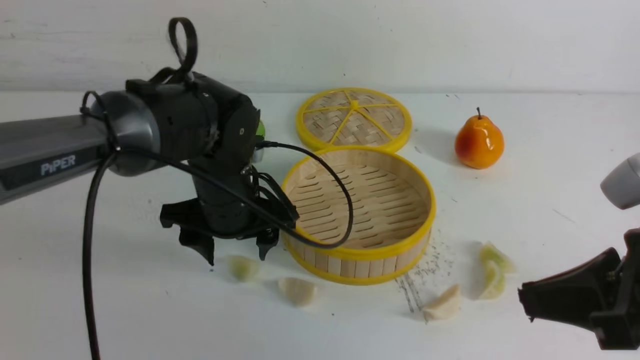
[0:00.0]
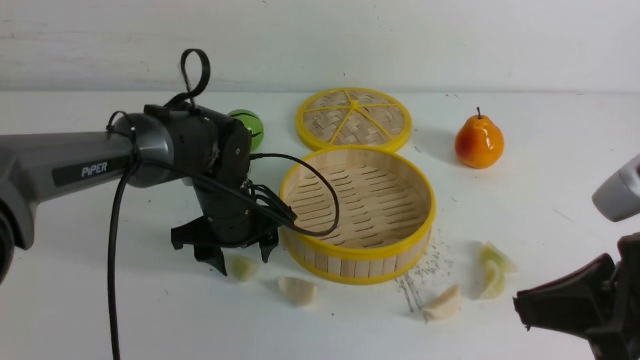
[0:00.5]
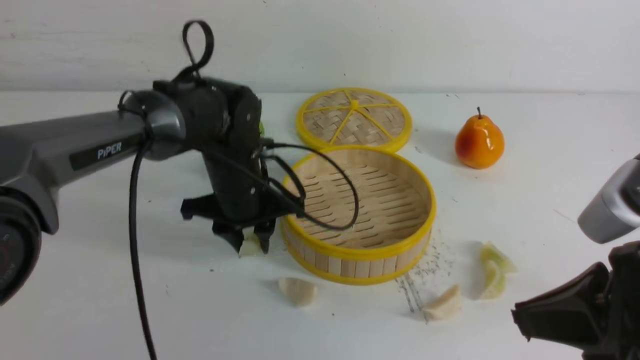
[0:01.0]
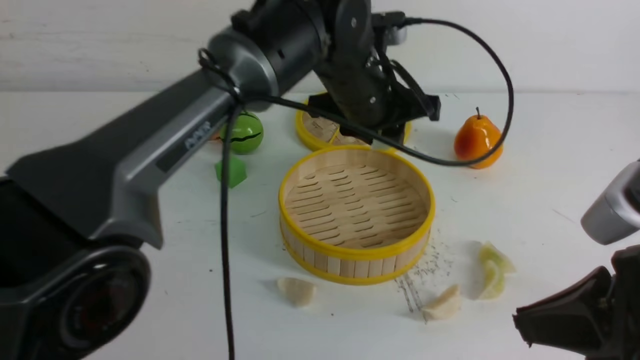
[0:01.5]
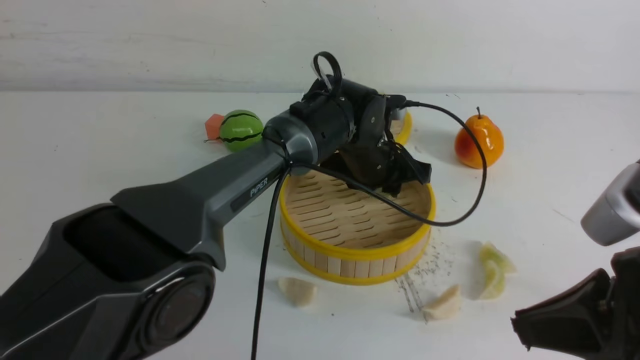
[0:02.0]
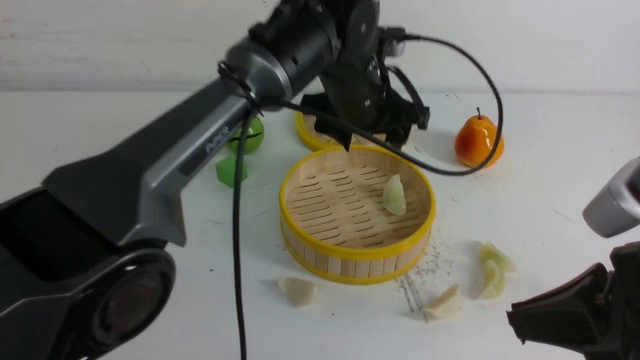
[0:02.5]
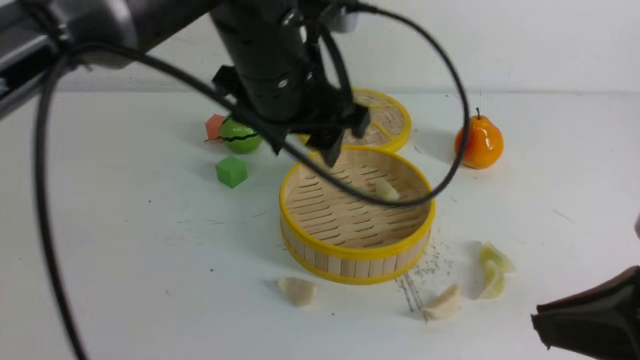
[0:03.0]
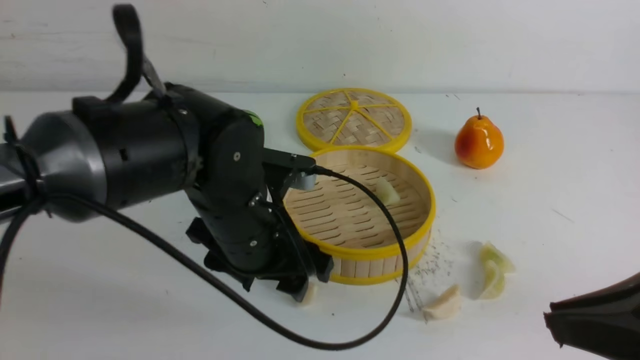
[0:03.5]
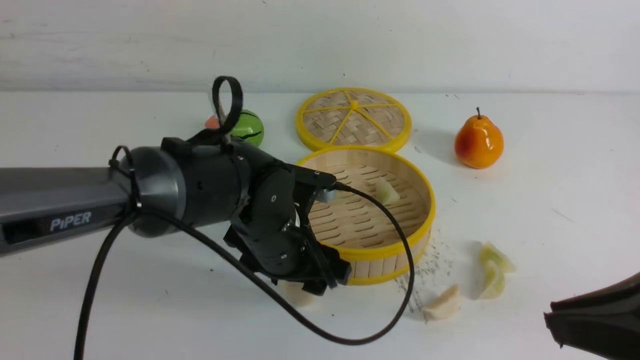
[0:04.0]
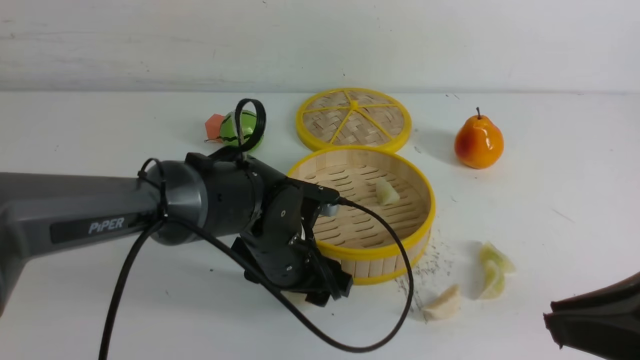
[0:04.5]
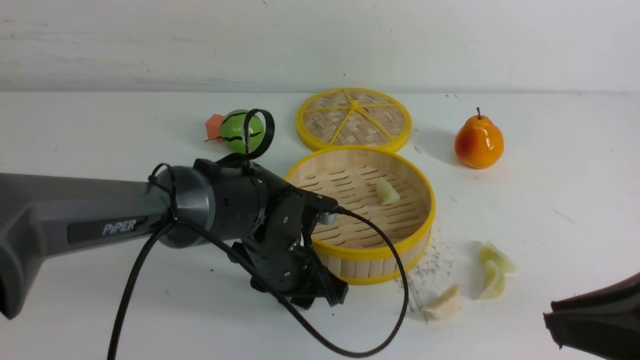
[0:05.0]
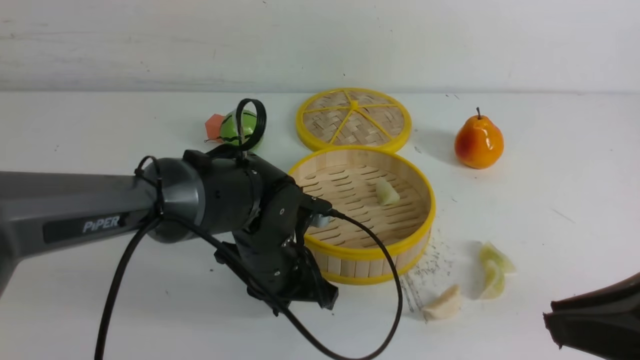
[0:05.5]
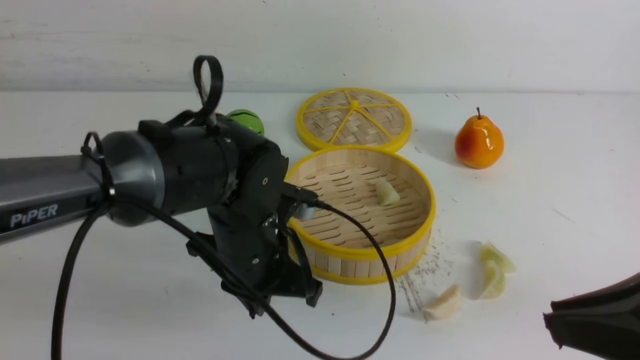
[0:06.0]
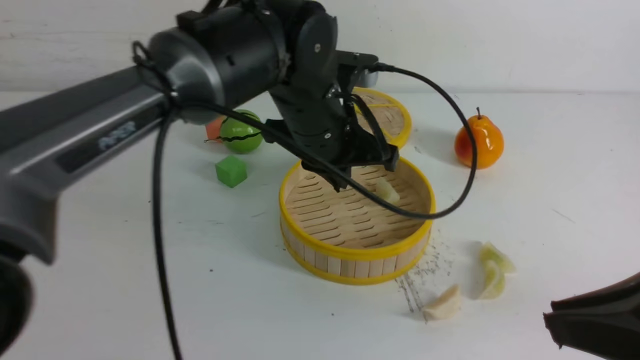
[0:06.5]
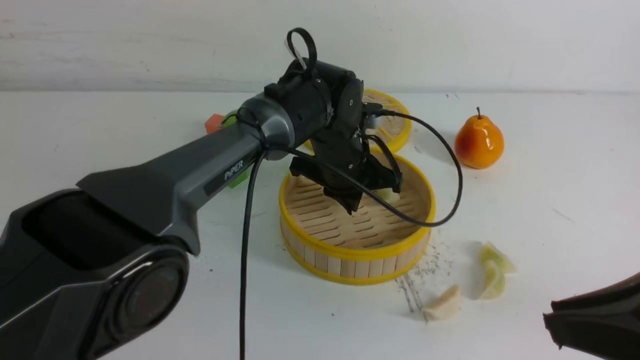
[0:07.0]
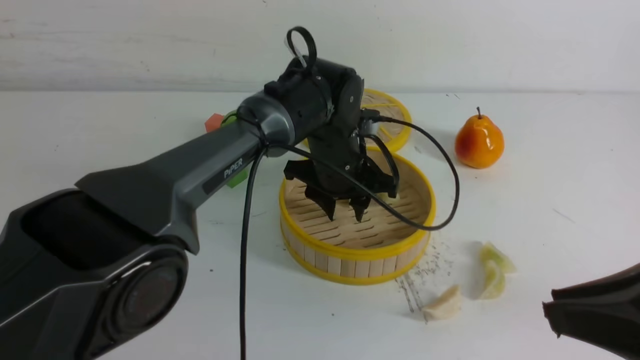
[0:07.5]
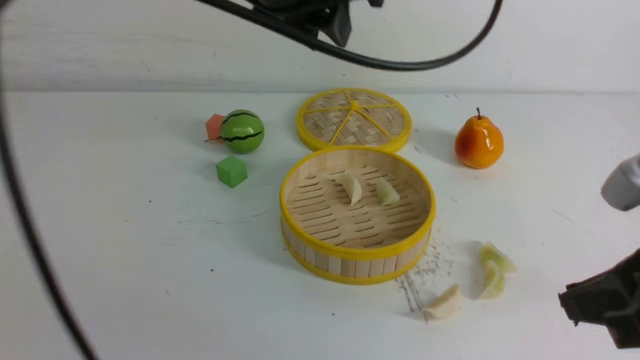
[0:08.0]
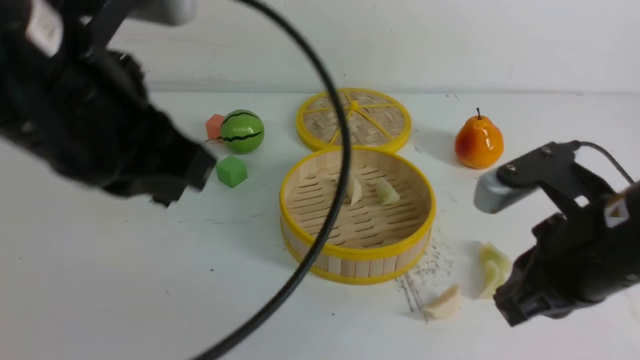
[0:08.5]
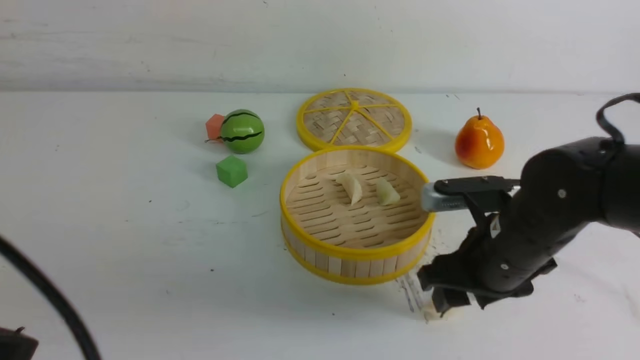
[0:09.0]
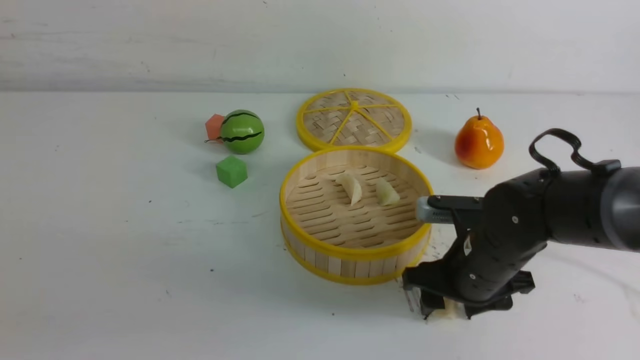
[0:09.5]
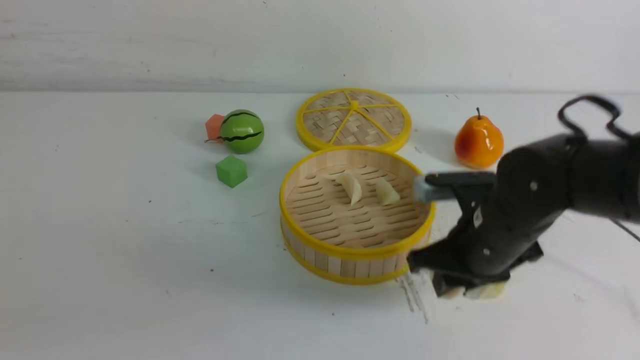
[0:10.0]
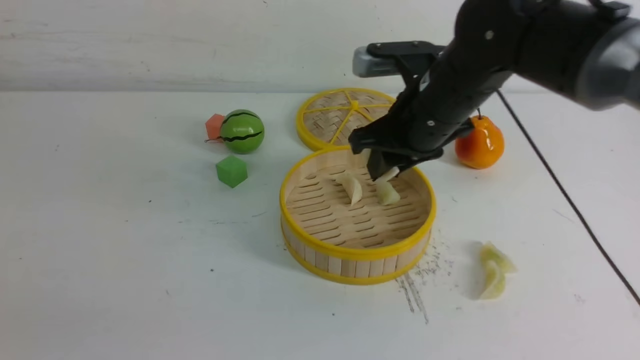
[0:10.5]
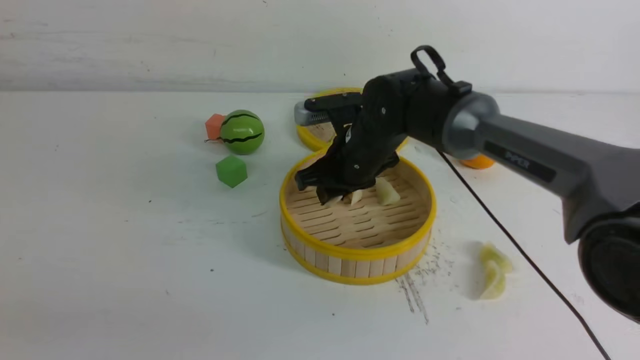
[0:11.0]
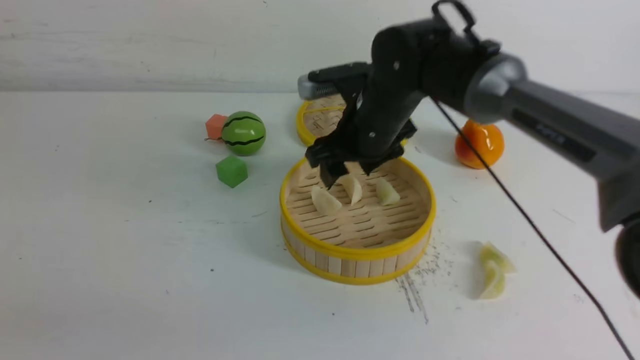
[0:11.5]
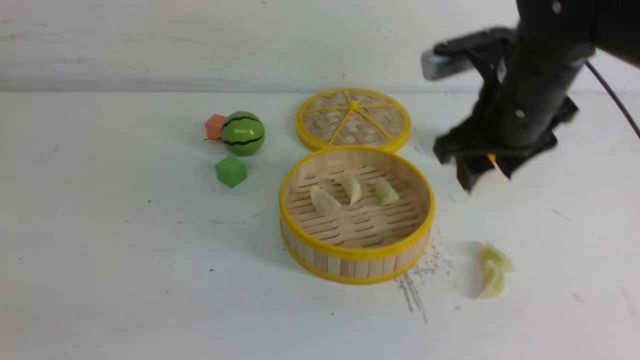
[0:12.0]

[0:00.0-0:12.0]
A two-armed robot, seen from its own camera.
Task of the whole recording: put the dumplings into the steamer on the white table.
Step, 0:01.5 to 0:02.0: use the left arm to put the dumpling into the steamer.
Step, 0:02.5 to 0:05.0: use the left arm to grab a dumpling.
Step, 0:05.5 to 0:07.0: use the left arm to put the dumpling into the steamer.
Step, 0:07.5 to 0:09.5: use the right arm to grab a dumpling.
Step, 0:10.0 to 0:11.0: use the right arm to put the dumpling into the steamer.
0:00.0 to 0:02.0: The left gripper goes about 20 cm to the right and forward, and closes its fingers.
0:02.0 to 0:04.0: The left gripper goes roughly 15 cm backward and to the left, travels upward and back again, approximately 15 cm each way, and opens its fingers.
0:04.0 to 0:06.0: The left gripper closes its fingers.
0:06.0 to 0:08.0: The left gripper swings up and down, approximately 25 cm each way, with 2 reversals, and opens up.
0:08.0 to 0:10.0: The right gripper shifts about 20 cm forward, downward and to the left, and opens and closes again. The left gripper heads backward and to the left, covering roughly 30 cm, and closes up.
0:10.0 to 0:12.0: The right gripper travels upward by some 10 cm, goes forward and returns, approximately 10 cm each way, and opens its fingers.

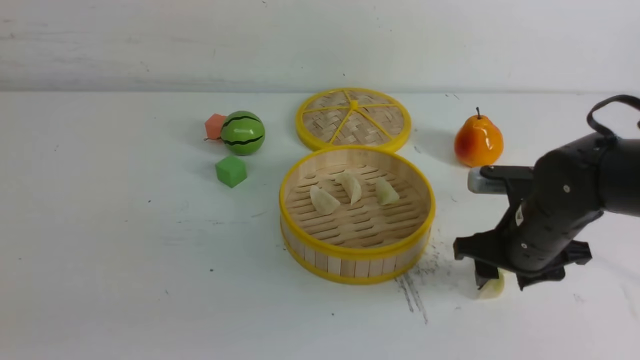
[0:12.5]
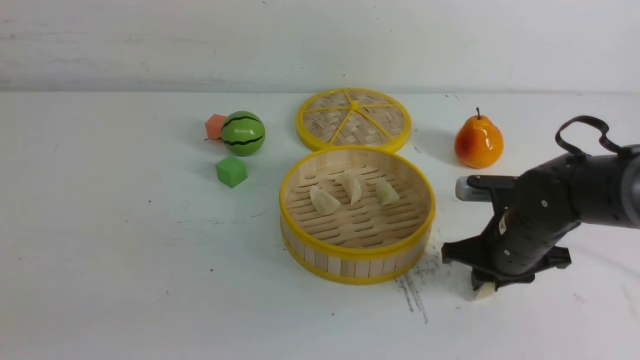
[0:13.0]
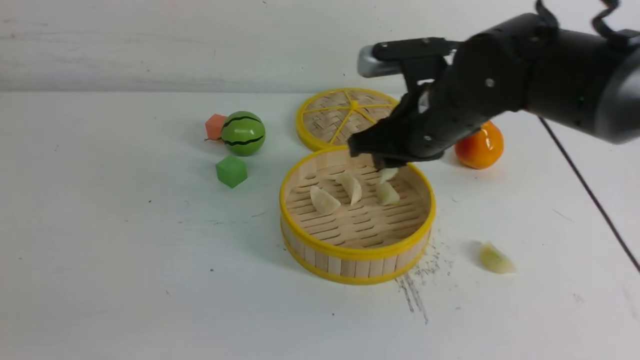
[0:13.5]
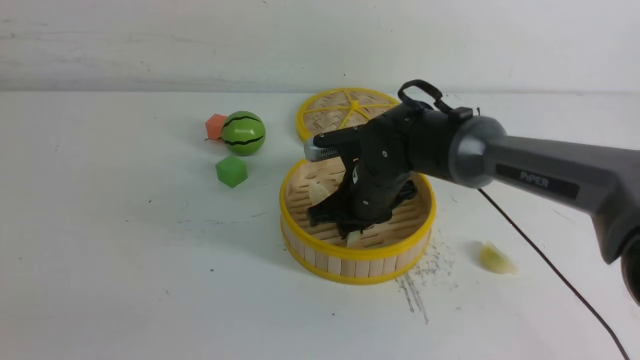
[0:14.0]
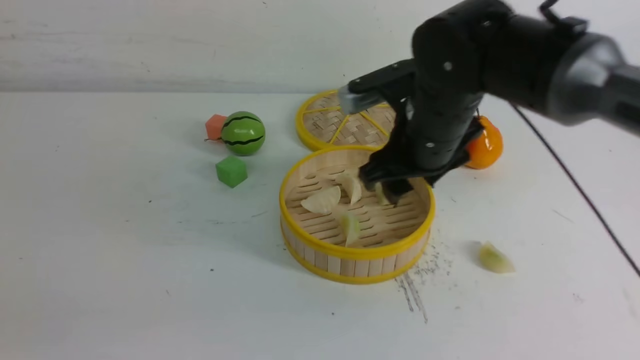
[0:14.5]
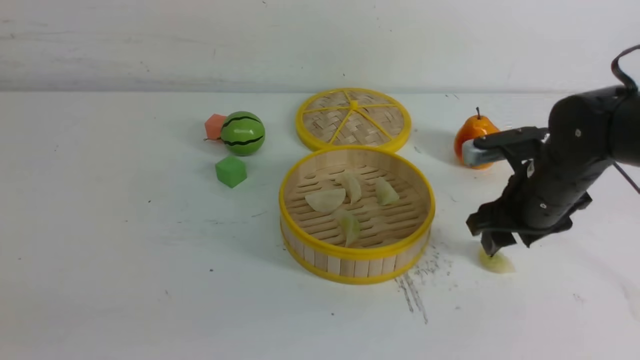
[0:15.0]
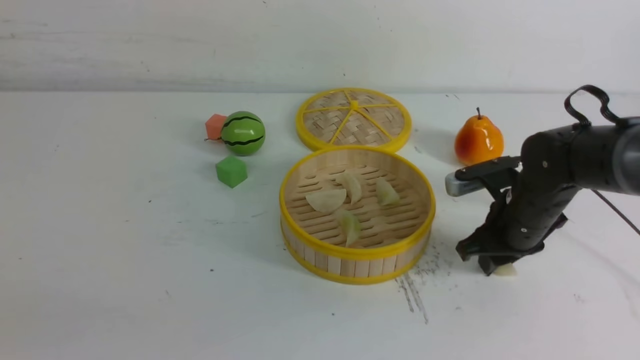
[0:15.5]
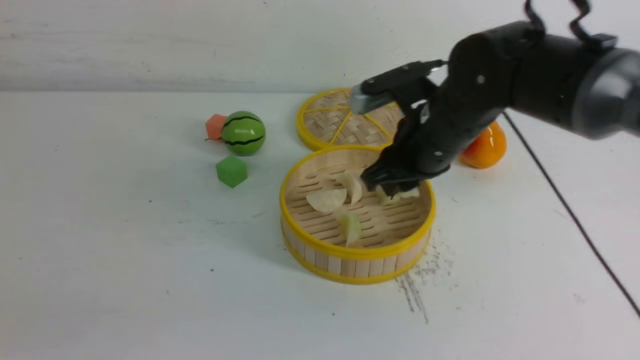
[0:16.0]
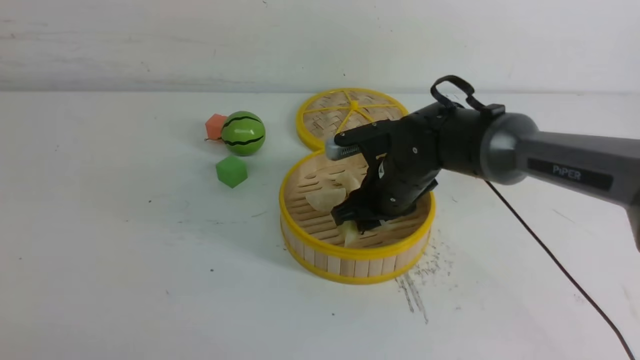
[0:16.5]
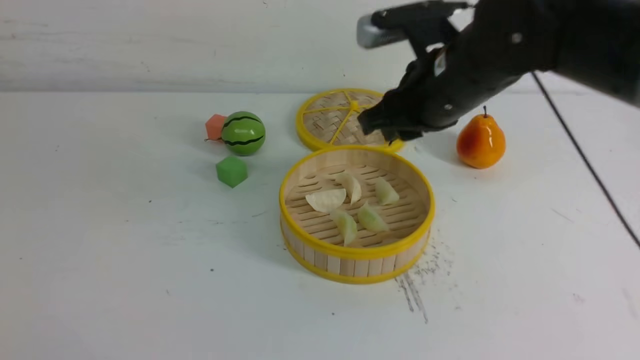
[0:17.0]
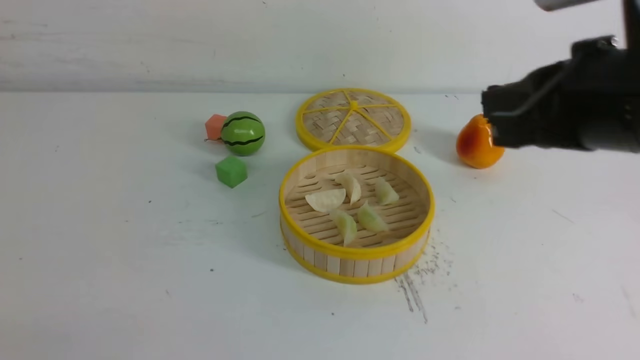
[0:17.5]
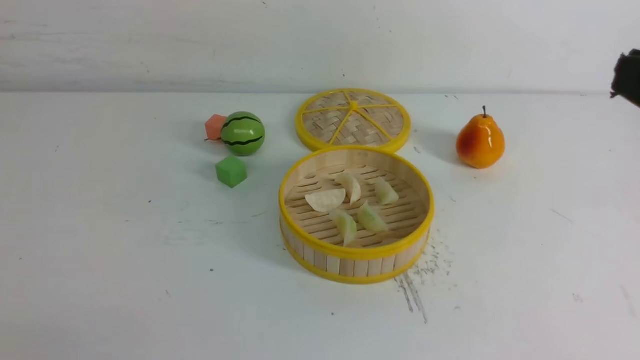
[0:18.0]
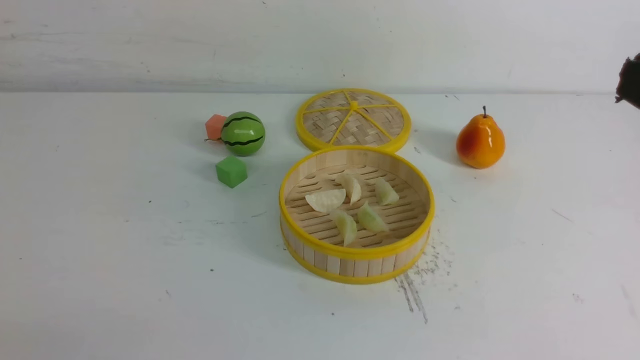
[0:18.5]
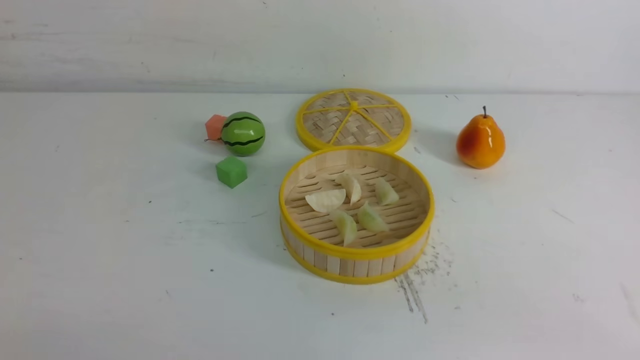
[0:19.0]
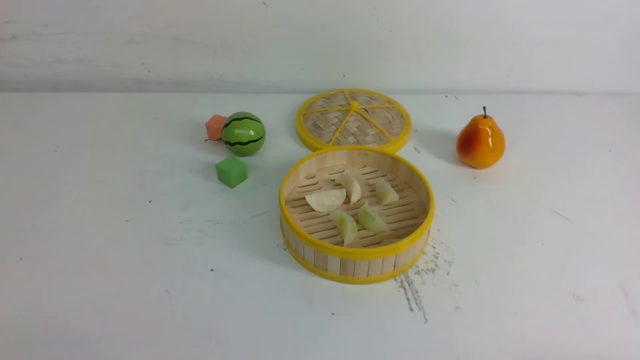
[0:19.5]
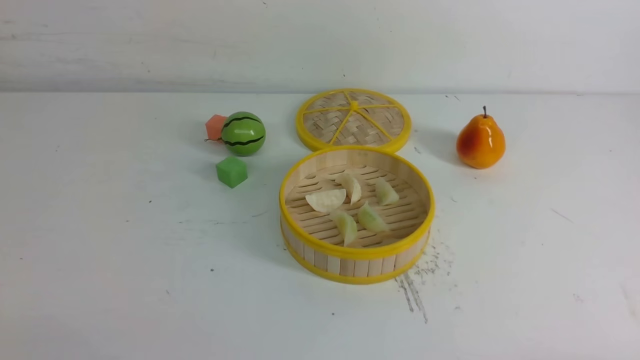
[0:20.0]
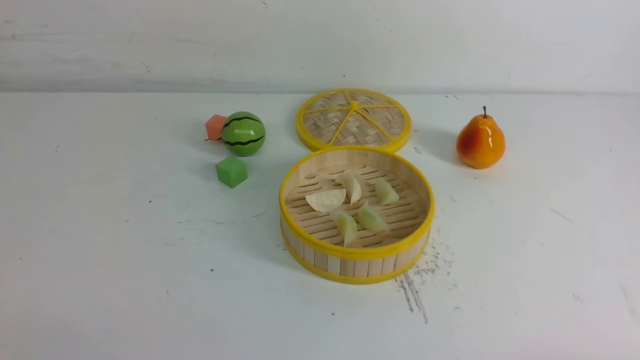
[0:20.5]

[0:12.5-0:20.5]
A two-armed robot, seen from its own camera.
Task of the whole recording: put the dumplings into the steamer on the white table.
Step, 0:13.5 to 0:14.0: use the right arm to put the dumpling into the steamer.
Step, 0:14.5 to 0:15.5: use the right arm to grab a dumpling.
Step, 0:16.0 to 0:16.5: use the right arm to put the dumpling into the steamer.
0:12.5 to 0:14.5: The right gripper travels to the left and upward by roughly 15 cm, and closes, then opens again.
0:14.5 to 0:16.5: The right gripper goes some 5 cm downward, and travels to the right and back again, approximately 10 cm each way; the left gripper shifts by approximately 5 cm.
0:16.5 to 0:18.5: The left gripper goes roughly 5 cm downward. The right gripper travels backward, upward and to the right by about 40 cm, and closes up.
